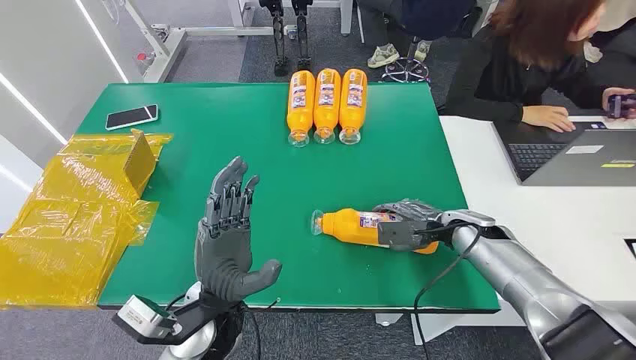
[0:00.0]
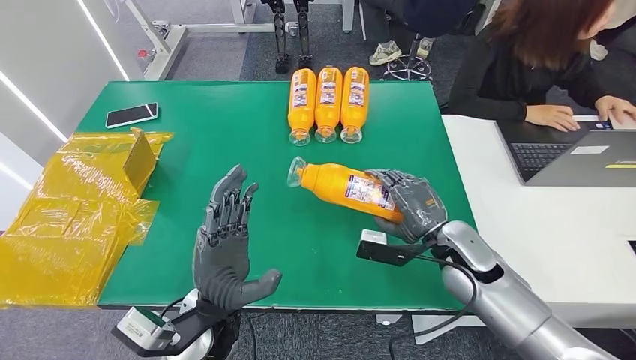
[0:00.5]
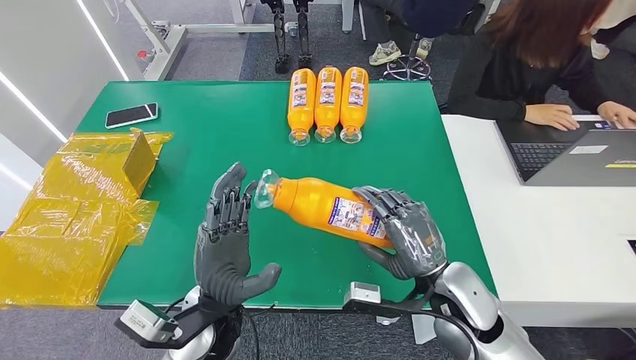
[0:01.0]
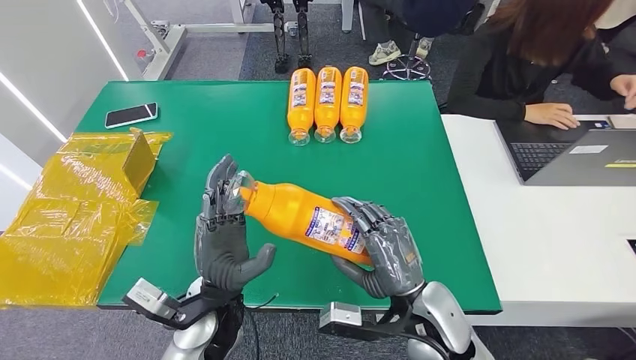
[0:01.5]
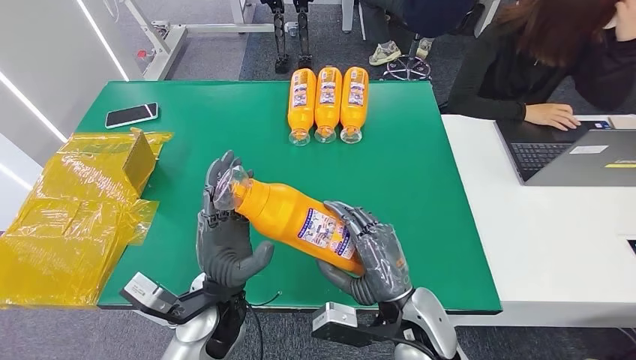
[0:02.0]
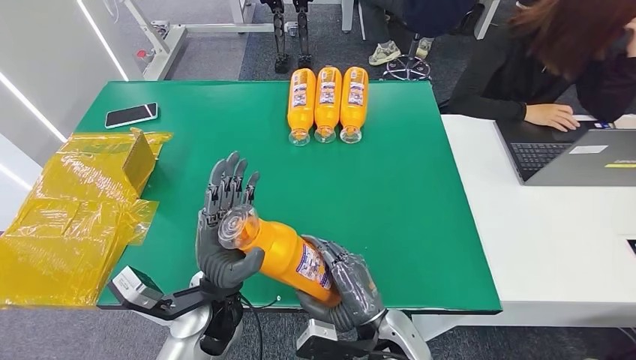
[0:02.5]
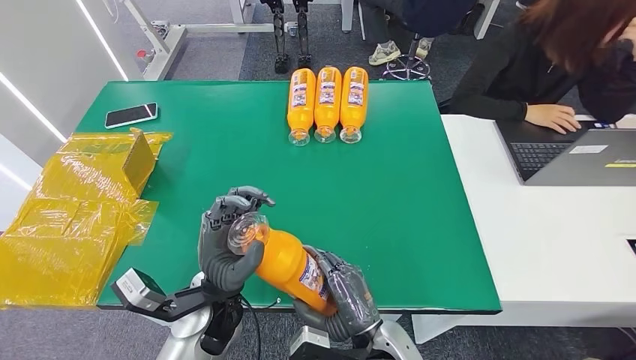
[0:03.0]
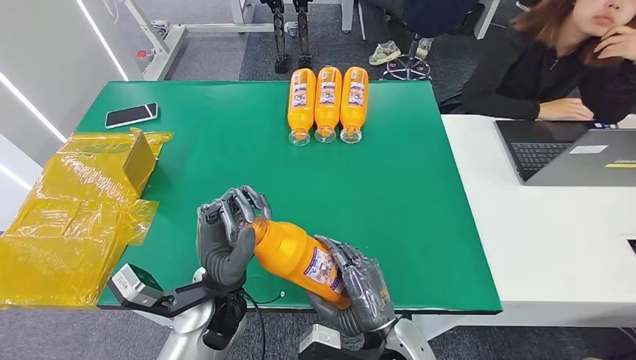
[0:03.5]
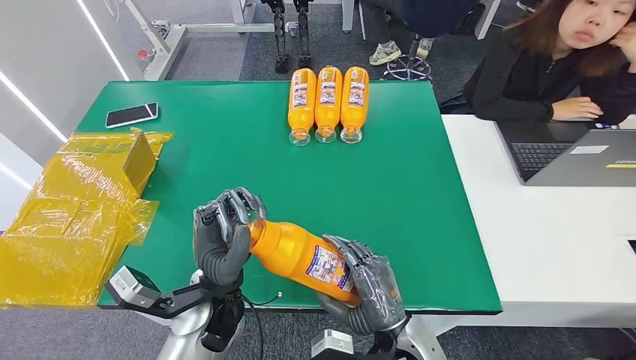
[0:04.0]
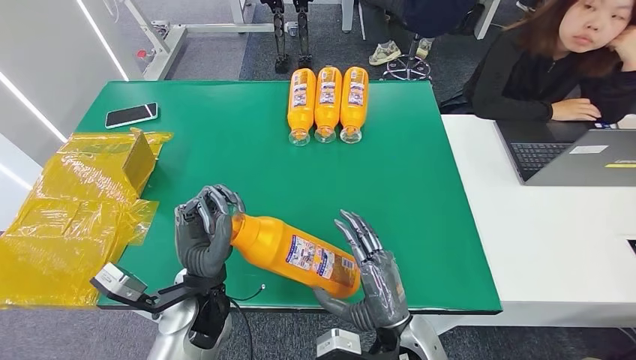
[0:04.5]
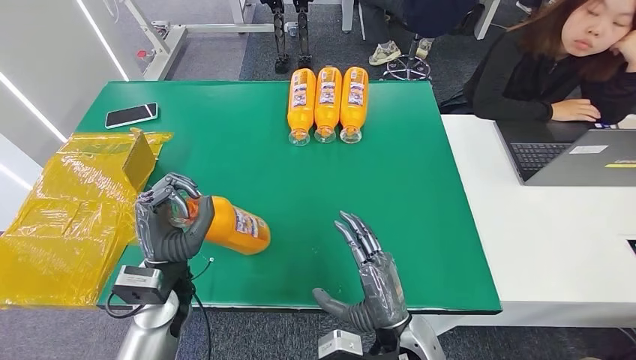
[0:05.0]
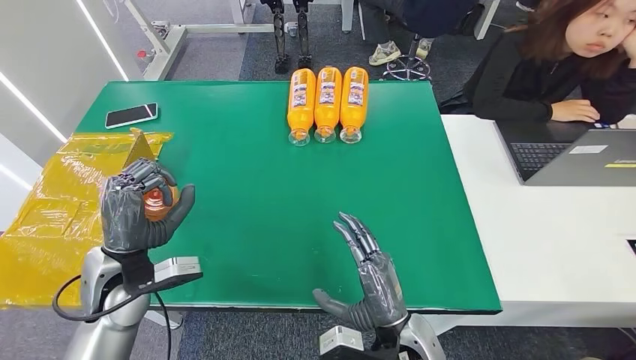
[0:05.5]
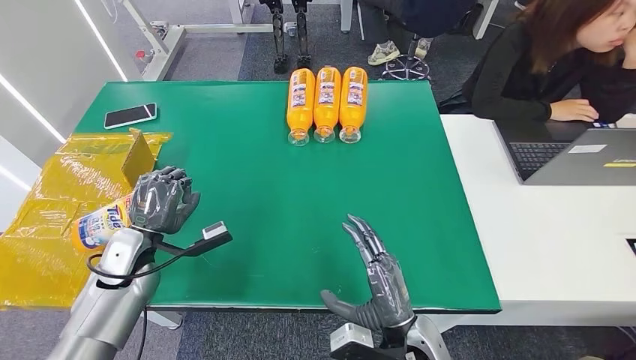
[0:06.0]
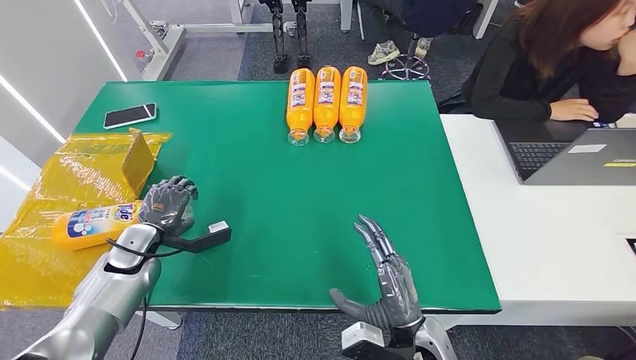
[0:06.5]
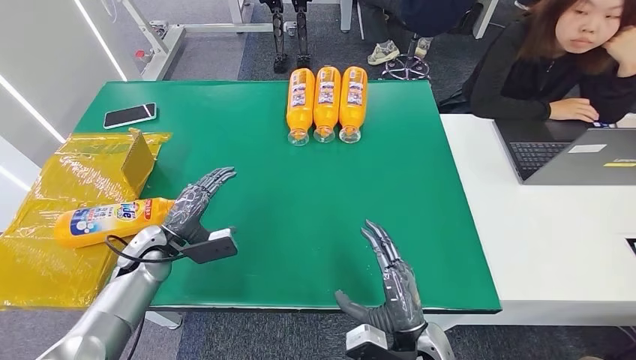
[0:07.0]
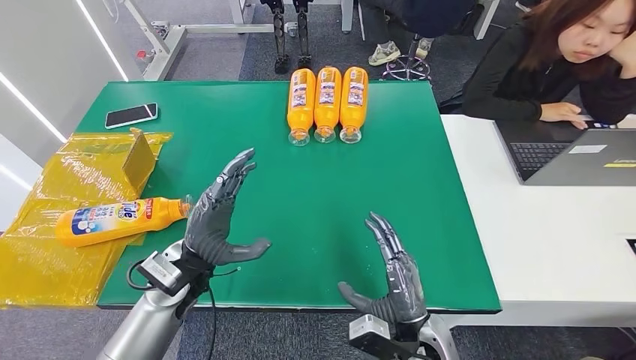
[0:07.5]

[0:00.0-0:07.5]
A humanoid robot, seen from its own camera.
Step, 0:00.0 to 0:01.5: Pick up the bottle from the table.
Step, 0:02.0 to 0:07.5: Turn the bottle to the front side.
0:02.0 to 0:04.0: The right hand shifts by approximately 5 cm.
0:04.0 to 0:05.5: The left hand is displaced to the left by some 15 cm.
0:05.5 to 0:07.5: The left hand heads to the right, covering roughly 5 cm.

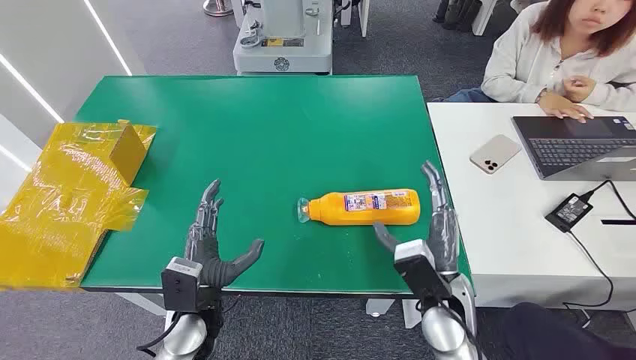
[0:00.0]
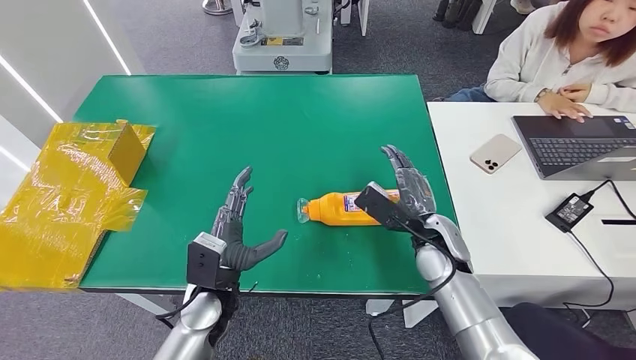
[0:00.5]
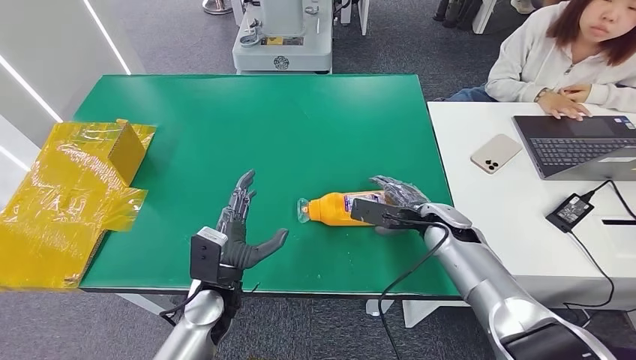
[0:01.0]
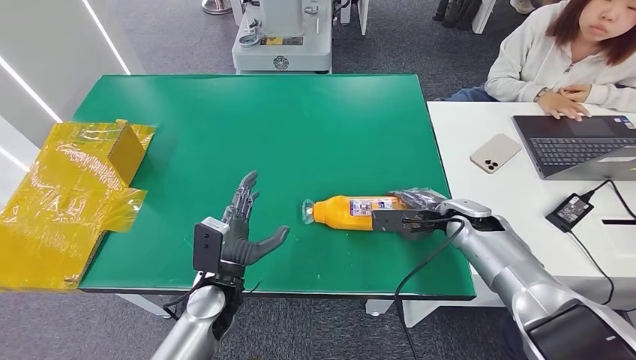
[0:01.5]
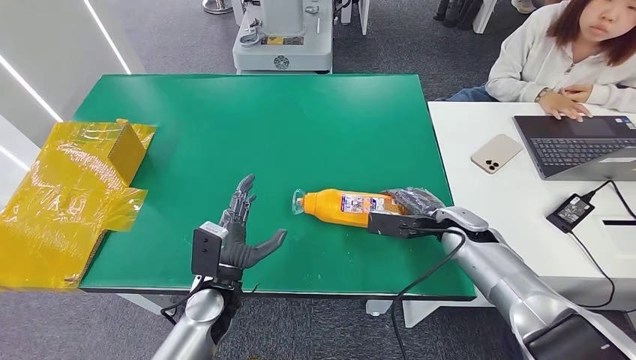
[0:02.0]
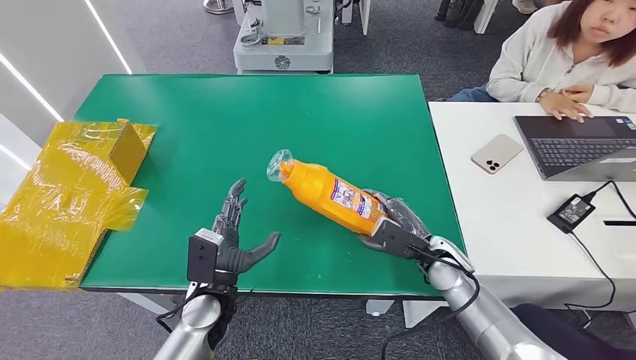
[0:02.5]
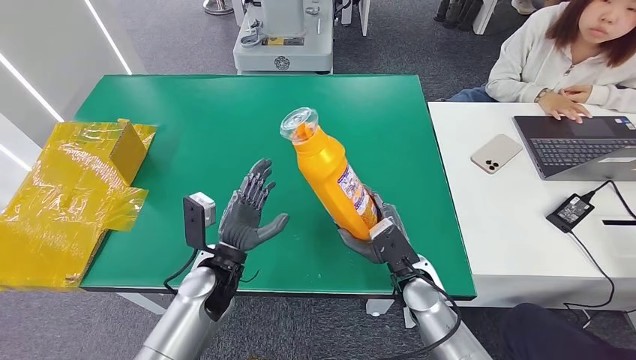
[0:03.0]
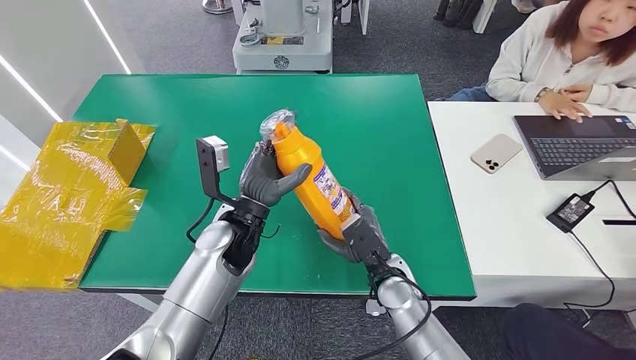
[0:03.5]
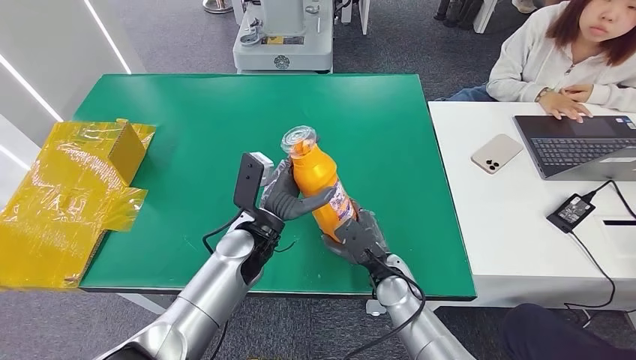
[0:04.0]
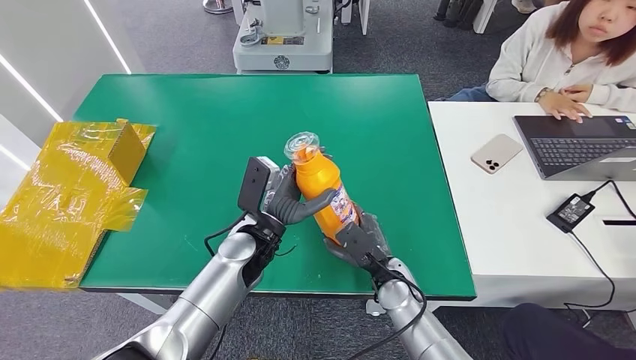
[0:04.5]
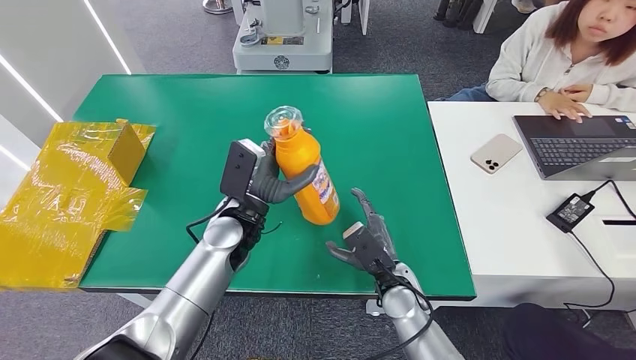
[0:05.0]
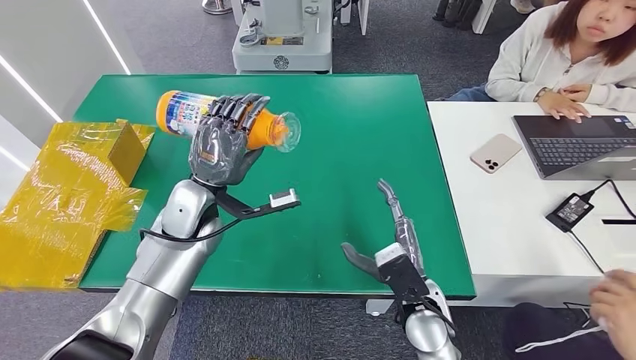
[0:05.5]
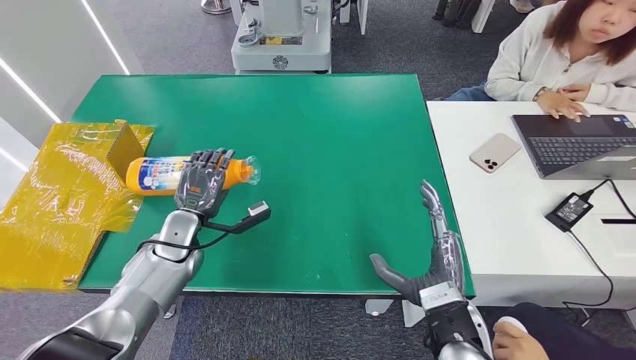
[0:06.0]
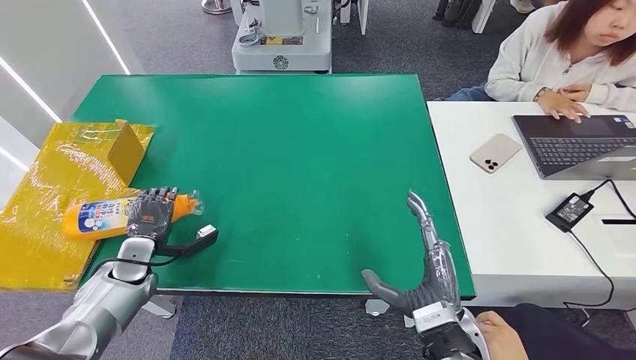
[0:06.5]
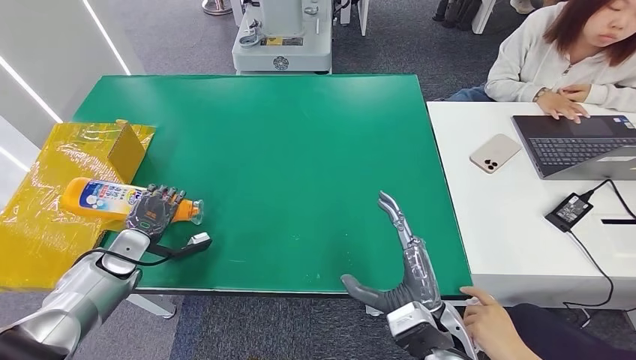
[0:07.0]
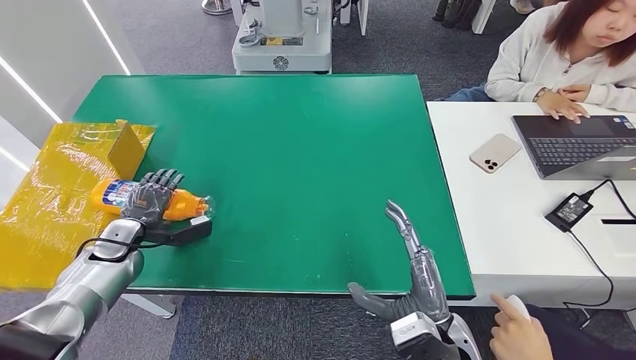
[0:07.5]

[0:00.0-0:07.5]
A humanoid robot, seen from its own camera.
Step, 0:00.0 to 0:02.5: Pick up the bottle from the table.
Step, 0:04.0 to 0:07.5: Turn the bottle to the front side.
0:02.0 to 0:04.0: The left hand is displaced forward, upward and to the right by about 10 cm; the right hand goes approximately 20 cm to the left and backward.
